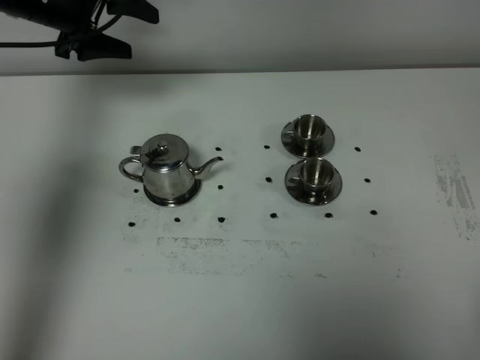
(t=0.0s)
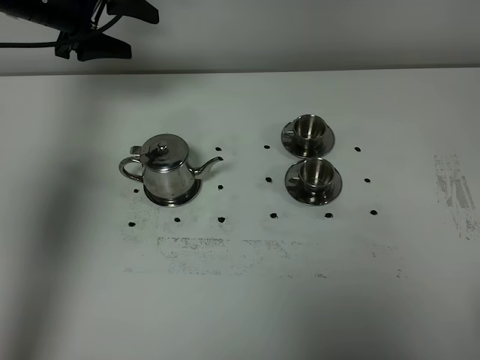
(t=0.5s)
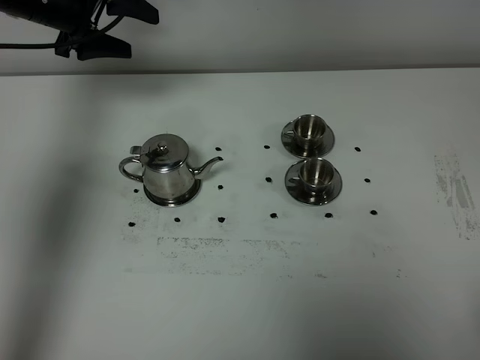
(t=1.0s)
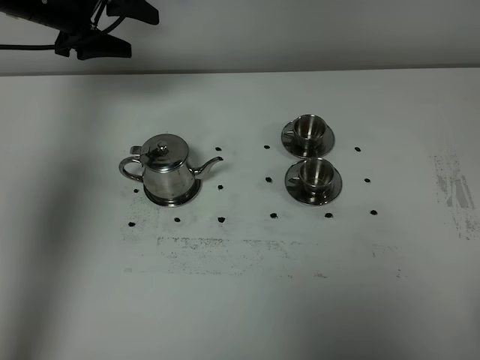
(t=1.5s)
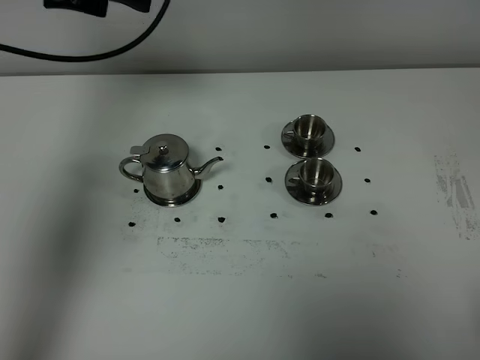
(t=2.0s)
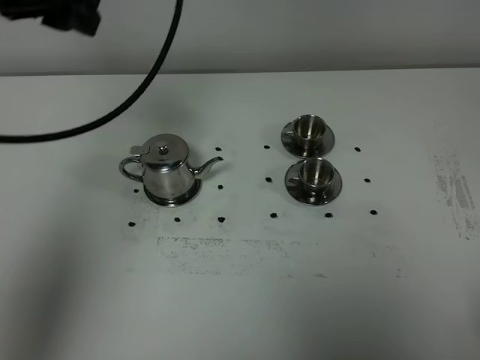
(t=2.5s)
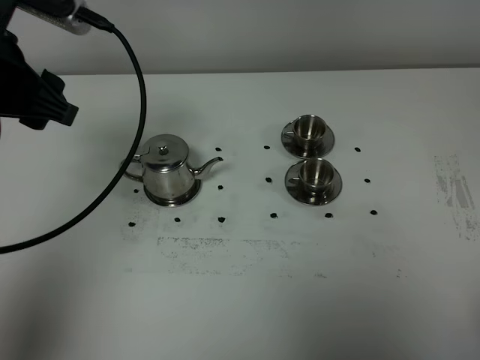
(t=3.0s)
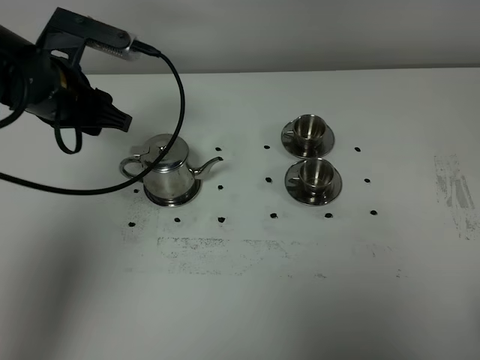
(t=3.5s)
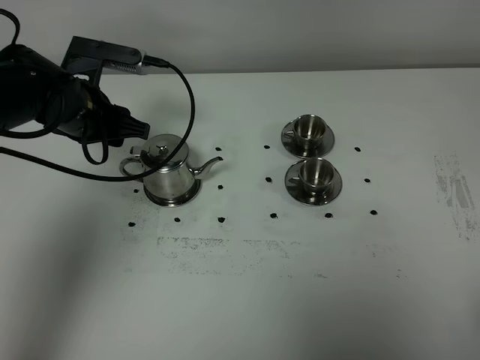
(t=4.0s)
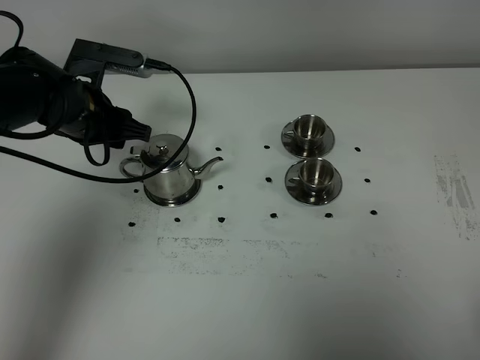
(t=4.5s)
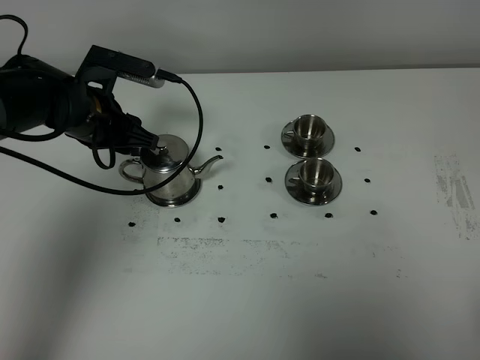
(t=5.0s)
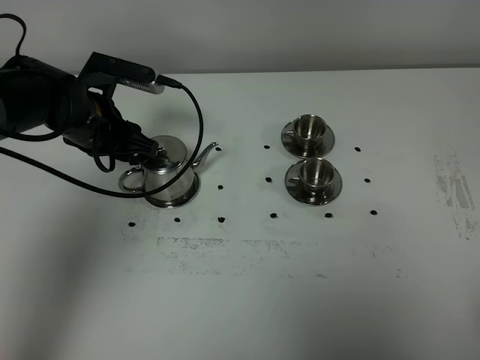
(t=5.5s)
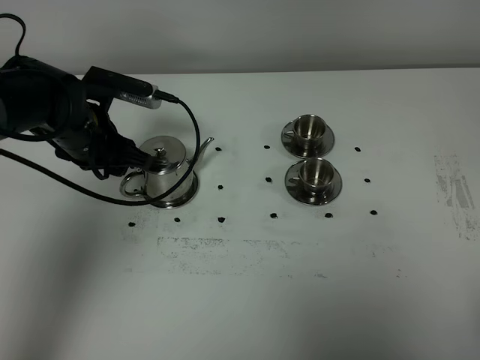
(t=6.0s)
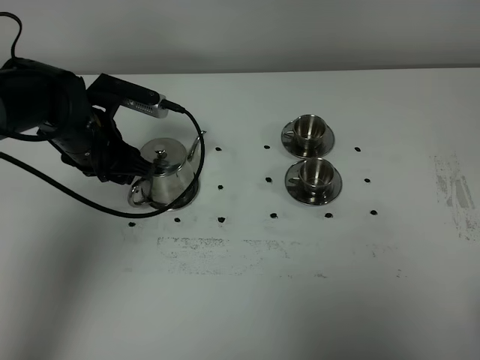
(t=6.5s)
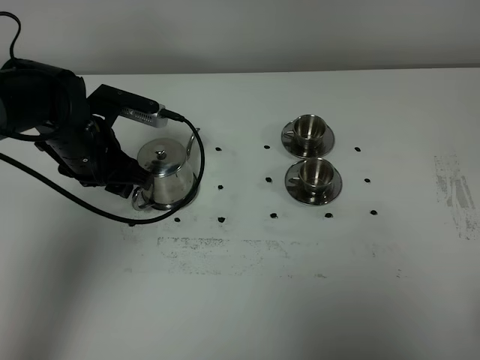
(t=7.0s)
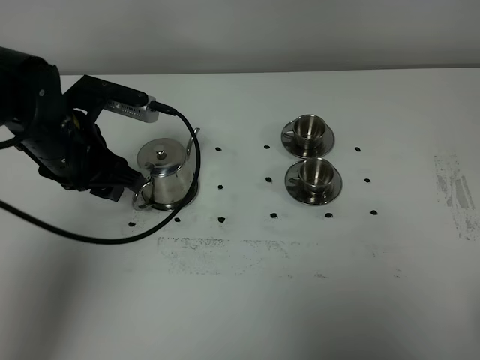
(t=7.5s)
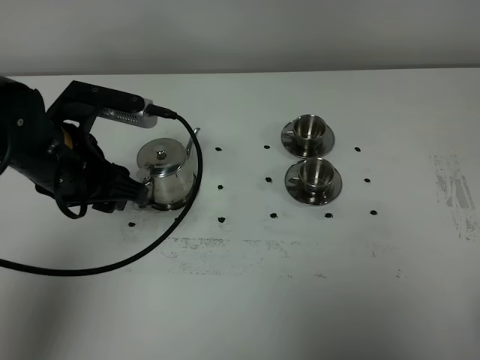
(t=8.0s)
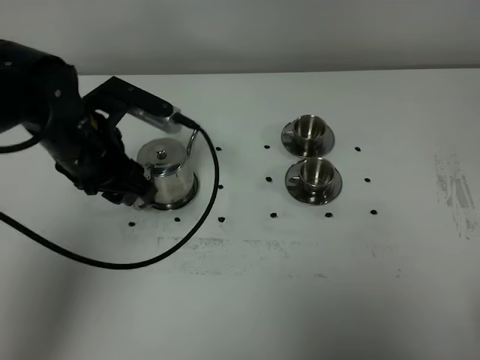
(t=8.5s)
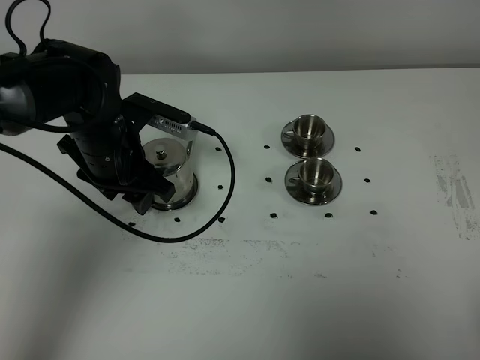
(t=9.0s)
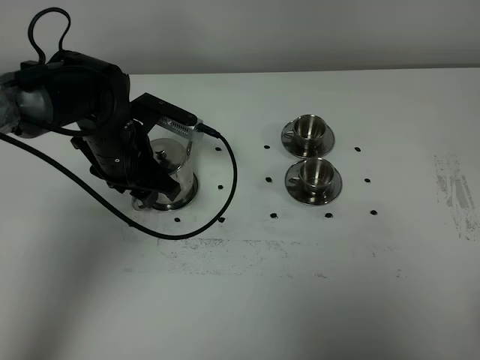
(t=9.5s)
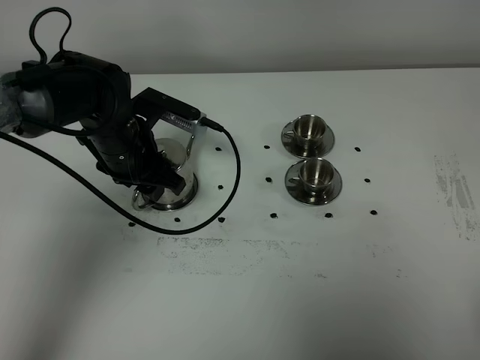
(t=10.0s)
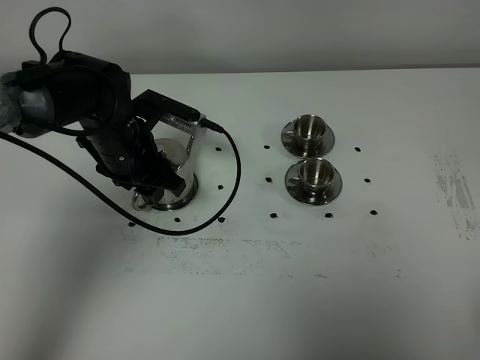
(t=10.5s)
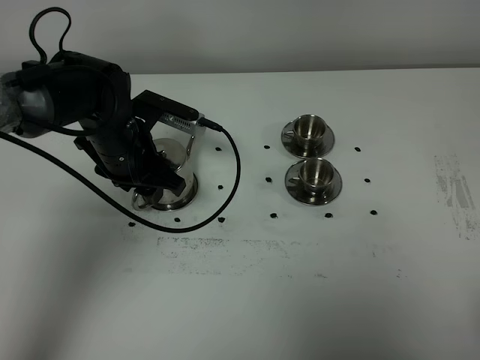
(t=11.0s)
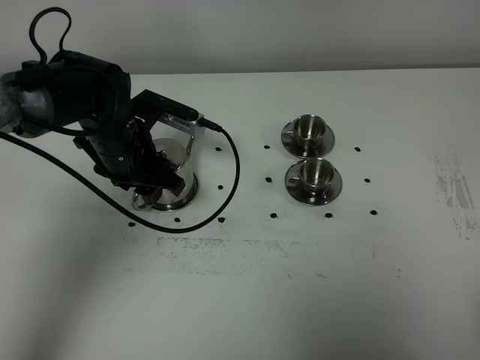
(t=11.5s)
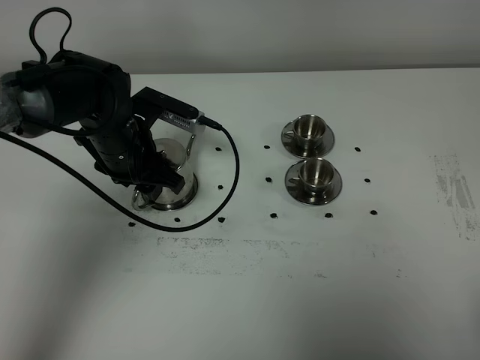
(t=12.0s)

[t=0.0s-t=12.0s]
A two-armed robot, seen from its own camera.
Task of the whole recording: grasp the stainless steel teapot and pour the tea into the two stainless steel teacups one by one, put the stainless steel teapot back in its original place.
t=0.0s to t=2.0s: The left gripper shifts some 10 cm upward and backward.
t=2.0s to t=4.0s: The left gripper travels downward by about 20 cm.
t=4.0s to t=6.0s: There are only small adjustments of the grippers.
t=6.0s to t=8.0s: The left gripper travels backward and upward by roughly 10 cm.
t=8.0s to t=10.0s: The left gripper is displaced forward and downward by approximately 10 cm.
t=10.0s to t=12.0s: Neither gripper changes place.

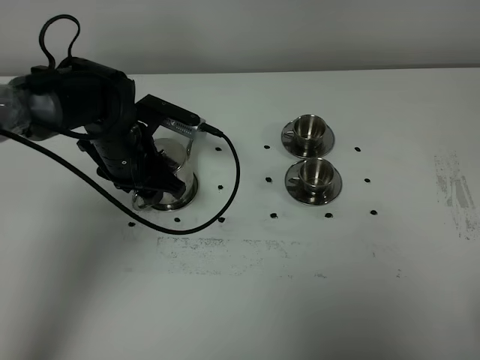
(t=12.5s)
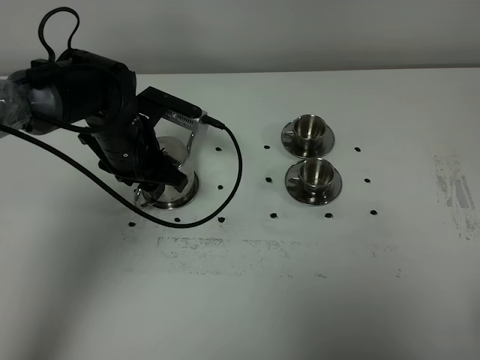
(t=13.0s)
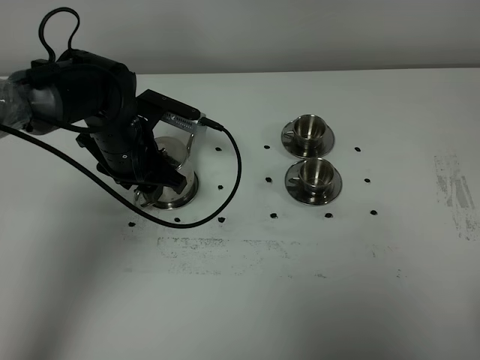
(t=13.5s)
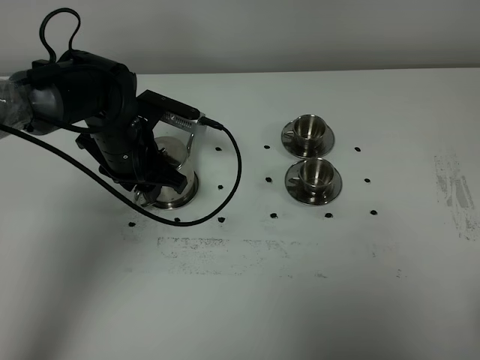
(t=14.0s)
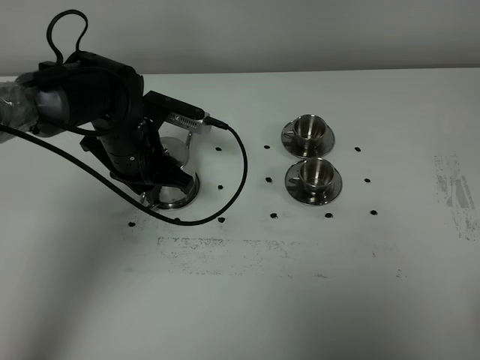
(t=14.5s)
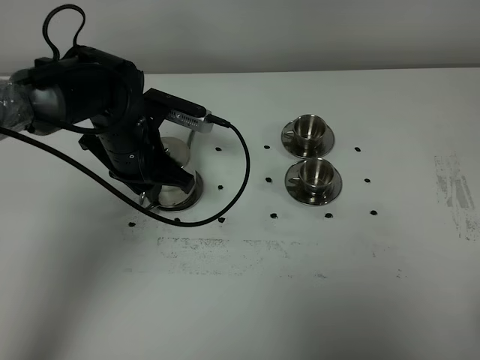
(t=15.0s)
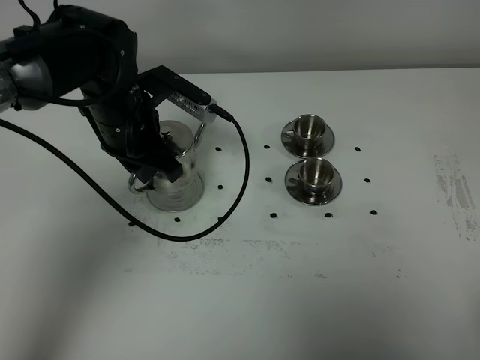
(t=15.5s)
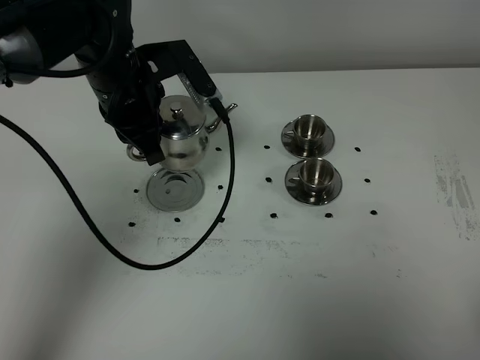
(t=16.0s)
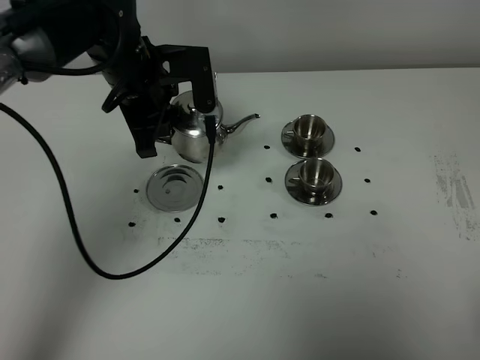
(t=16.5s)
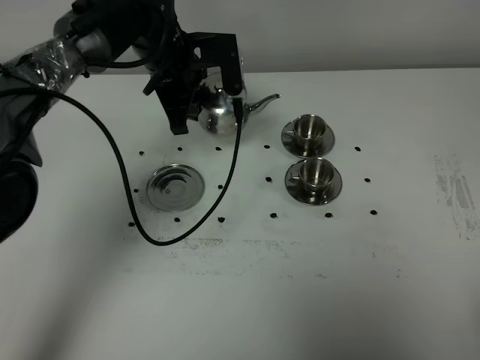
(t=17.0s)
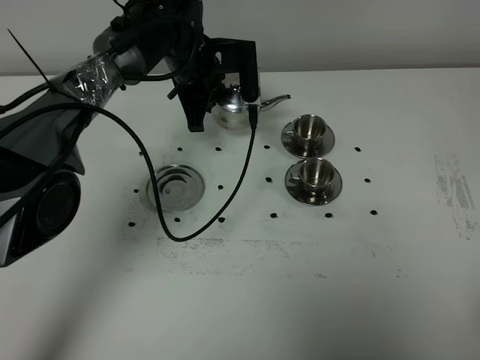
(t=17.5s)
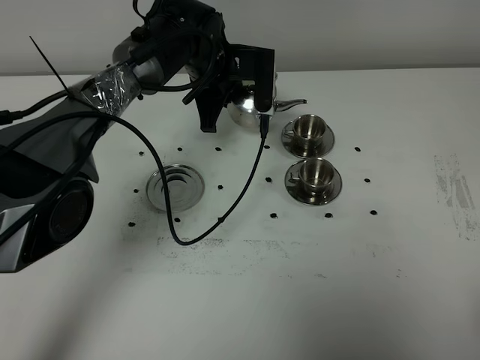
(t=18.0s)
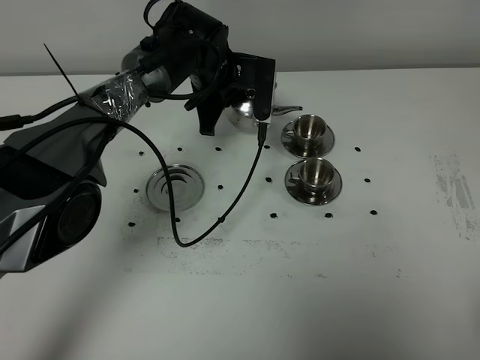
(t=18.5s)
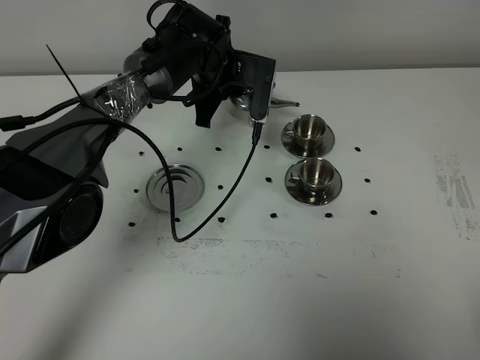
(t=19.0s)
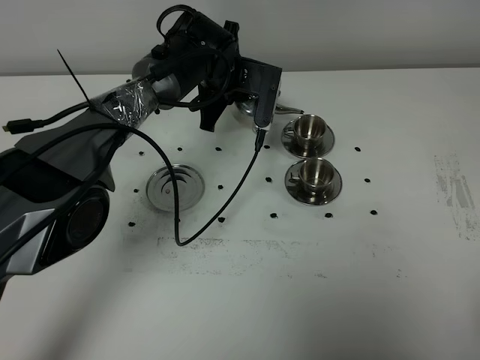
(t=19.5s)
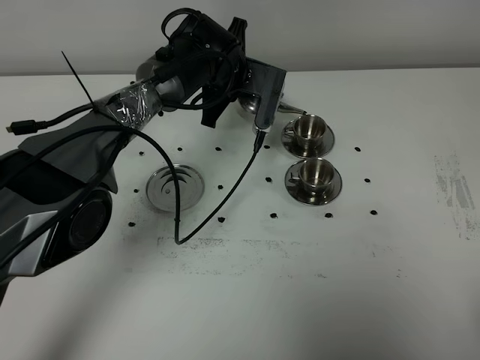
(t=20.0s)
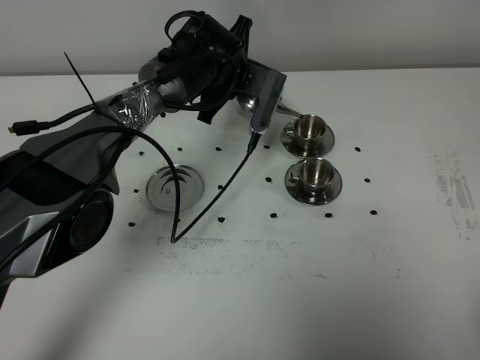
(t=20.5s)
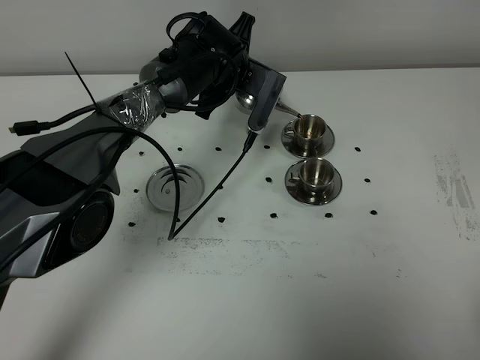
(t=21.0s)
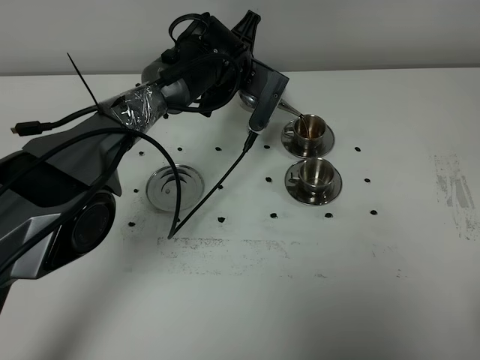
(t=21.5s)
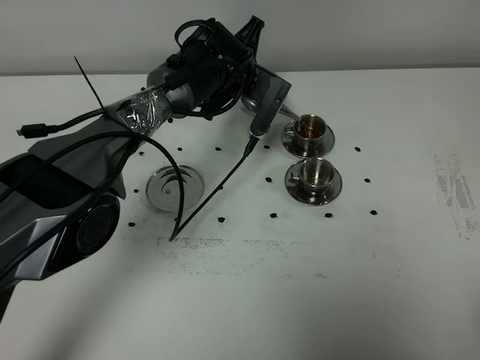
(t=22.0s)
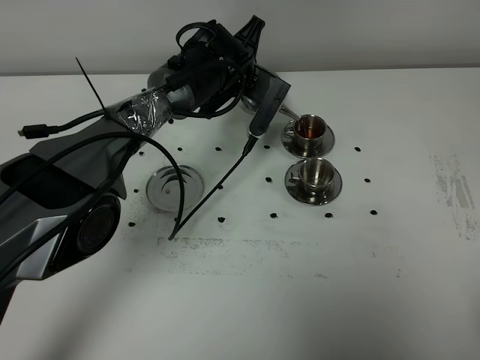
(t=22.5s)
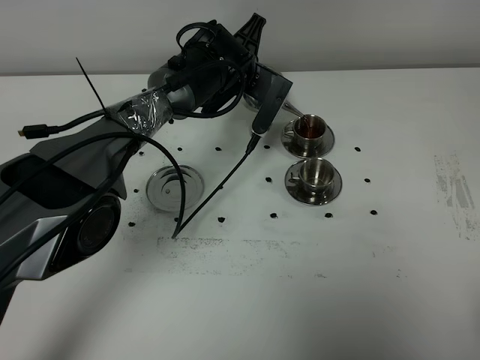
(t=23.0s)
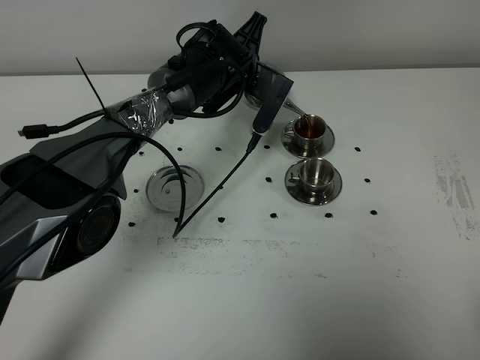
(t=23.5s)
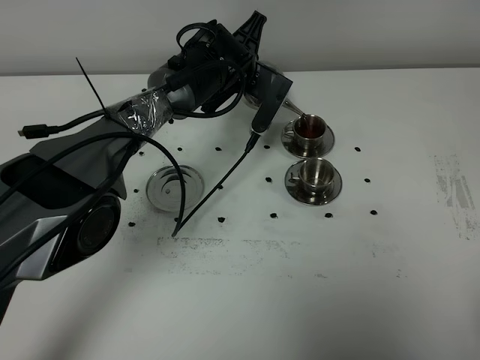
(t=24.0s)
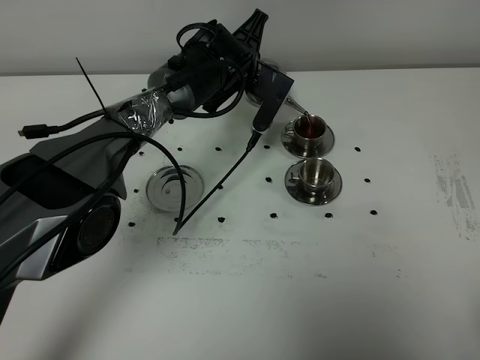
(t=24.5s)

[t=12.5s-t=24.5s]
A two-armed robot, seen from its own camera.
Task of the whole recording: grasp the stainless steel teapot and pour the tea into the two stainless steel teacups one by one, put the stainless steel teapot back in its original place.
Step, t=12.5s to t=15.0s: Pick up the teapot with the left gripper.
t=12.5s to t=14.5s: The left gripper closes its fingers.
t=14.5s to t=16.5s: The left gripper moves upward, some 10 cm.
t=16.5s to t=18.5s: The left gripper moves forward, to the right and downward, some 15 cm.
t=20.5s to t=22.5s: The grippers move only a little.
t=22.5s to t=24.5s: Neither gripper changes place.

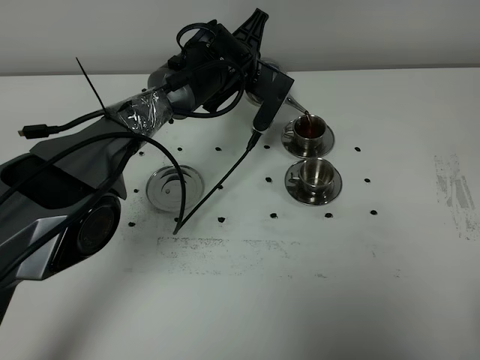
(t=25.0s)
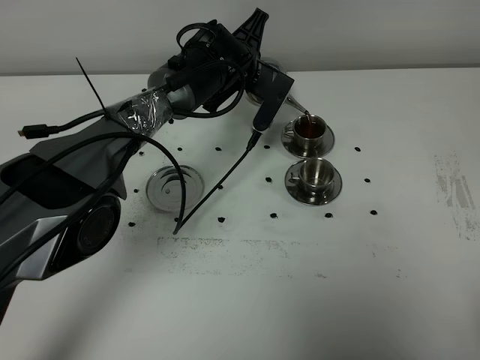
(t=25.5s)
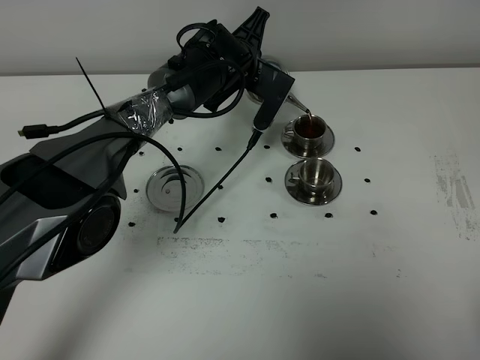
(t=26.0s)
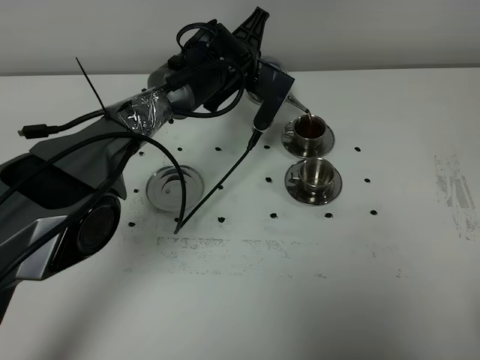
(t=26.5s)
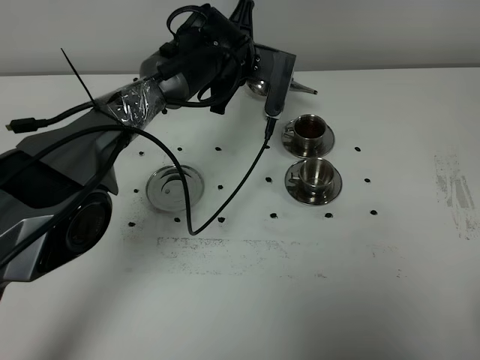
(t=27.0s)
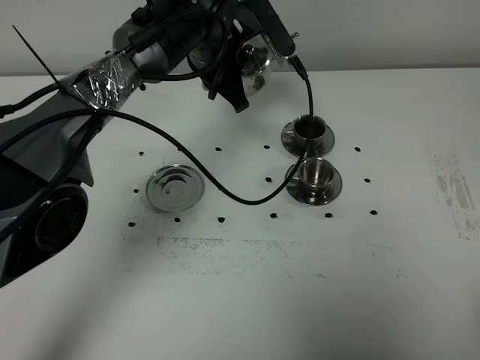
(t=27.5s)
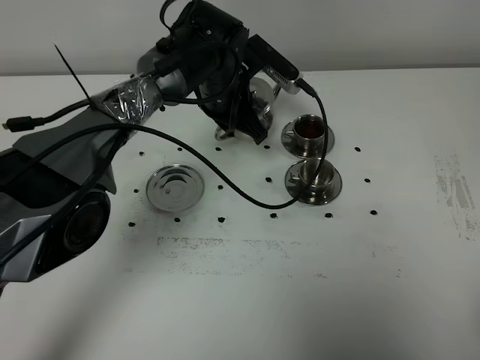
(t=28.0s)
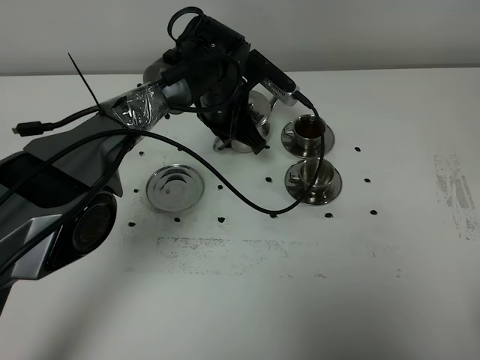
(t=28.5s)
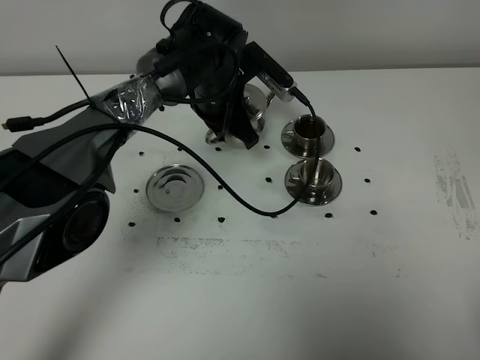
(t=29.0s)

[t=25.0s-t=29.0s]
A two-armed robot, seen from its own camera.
Task of the whole recording: grasp the stainless steel teapot and pour the tea into the two stainless steel teacups one by one, put the stainless steel teapot back in its original place.
t=25.0s to t=27.0s: The grippers stay close to where they were, moving slightly.
t=27.0s to t=29.0s: The left gripper reaches approximately 5 cm downward, then returns.
